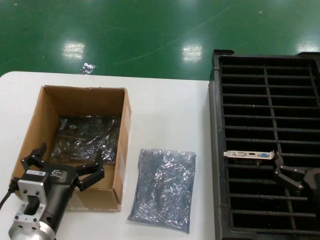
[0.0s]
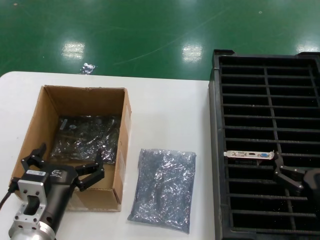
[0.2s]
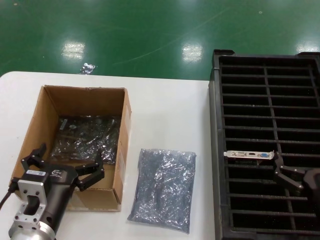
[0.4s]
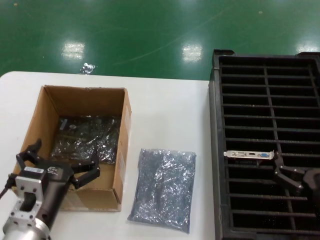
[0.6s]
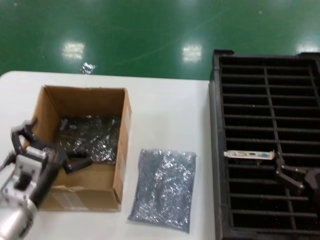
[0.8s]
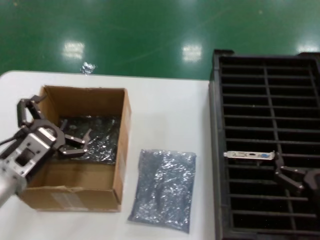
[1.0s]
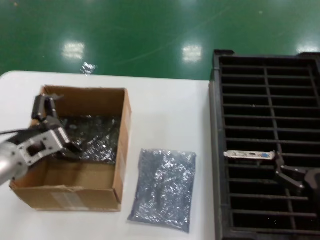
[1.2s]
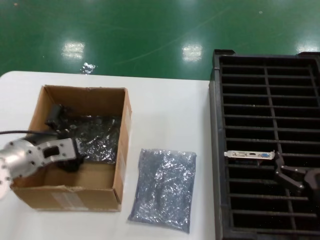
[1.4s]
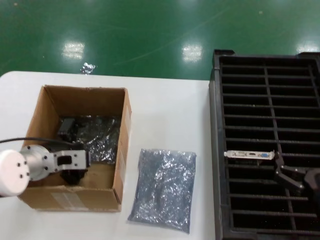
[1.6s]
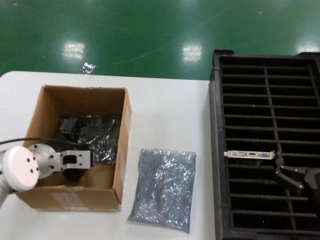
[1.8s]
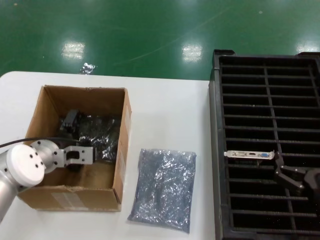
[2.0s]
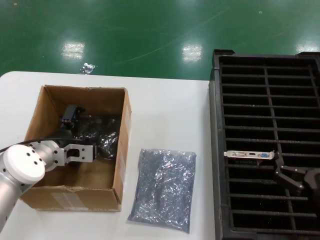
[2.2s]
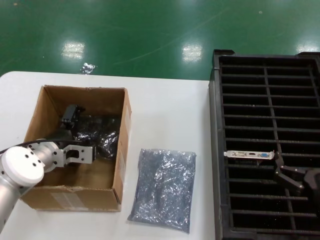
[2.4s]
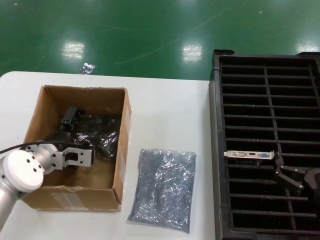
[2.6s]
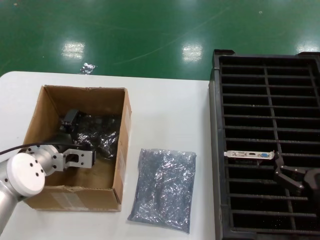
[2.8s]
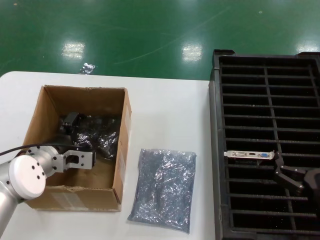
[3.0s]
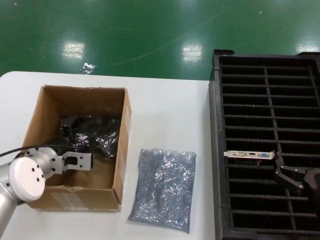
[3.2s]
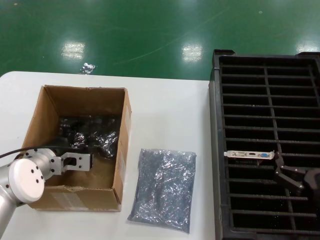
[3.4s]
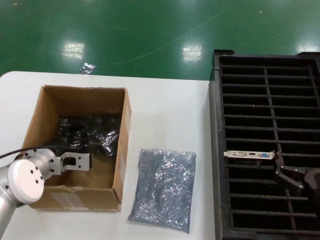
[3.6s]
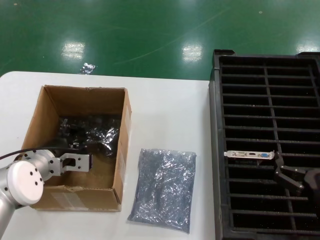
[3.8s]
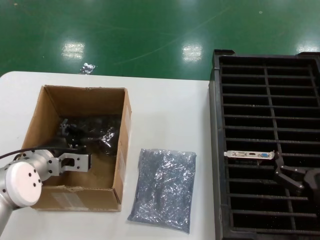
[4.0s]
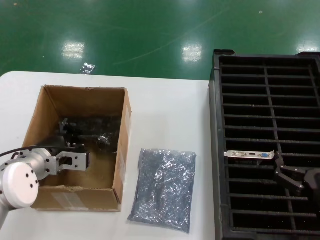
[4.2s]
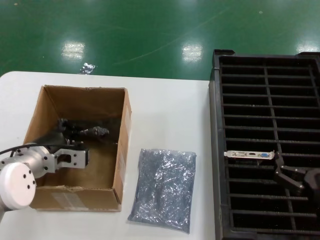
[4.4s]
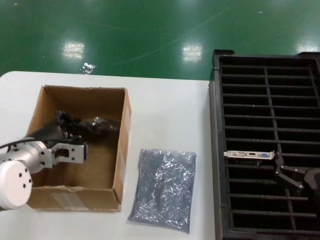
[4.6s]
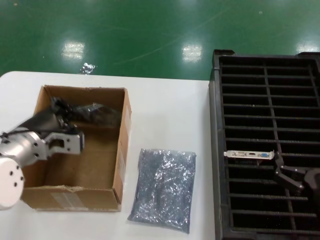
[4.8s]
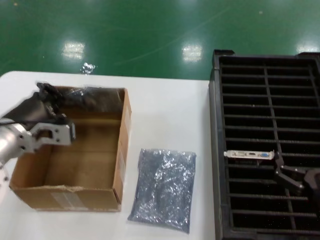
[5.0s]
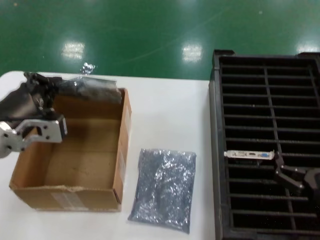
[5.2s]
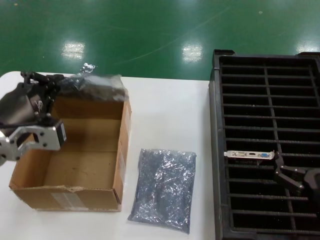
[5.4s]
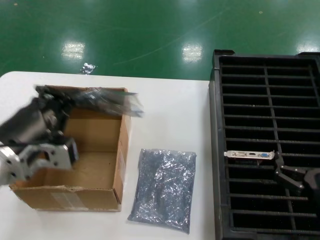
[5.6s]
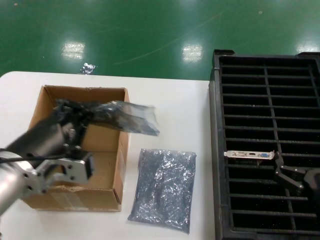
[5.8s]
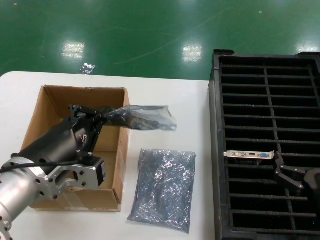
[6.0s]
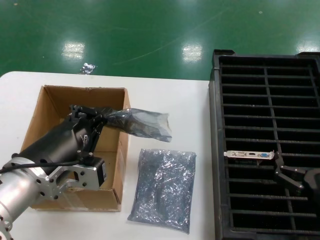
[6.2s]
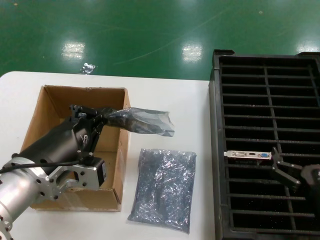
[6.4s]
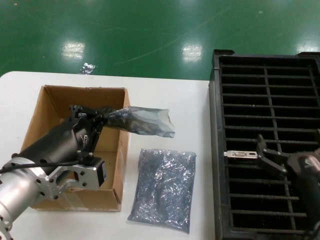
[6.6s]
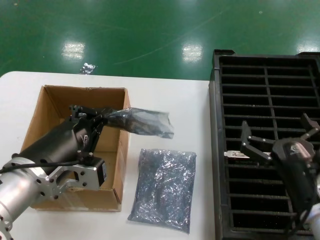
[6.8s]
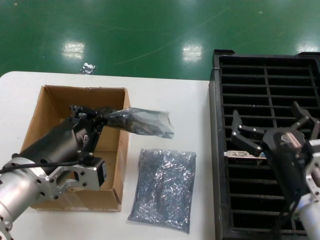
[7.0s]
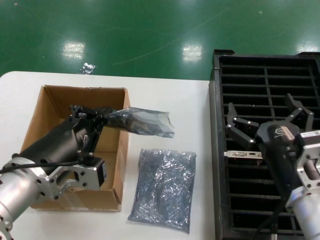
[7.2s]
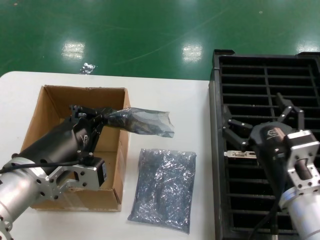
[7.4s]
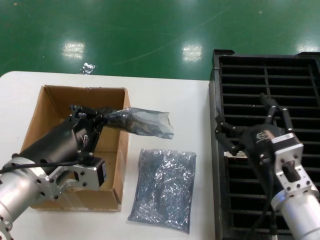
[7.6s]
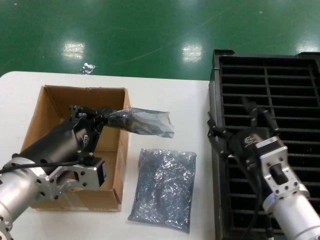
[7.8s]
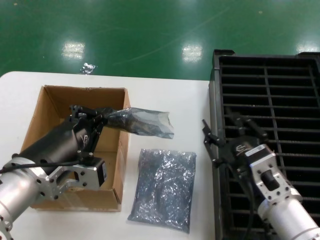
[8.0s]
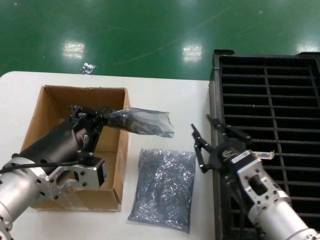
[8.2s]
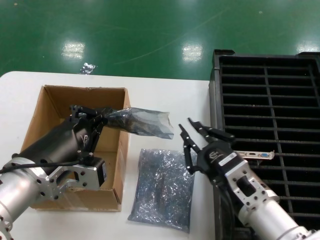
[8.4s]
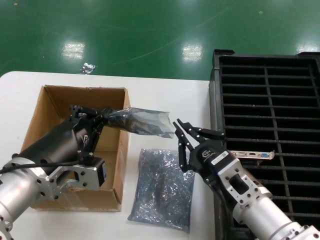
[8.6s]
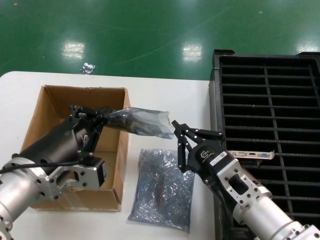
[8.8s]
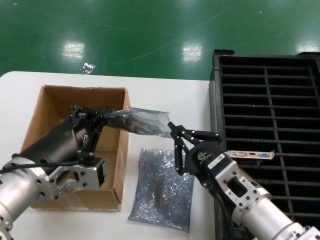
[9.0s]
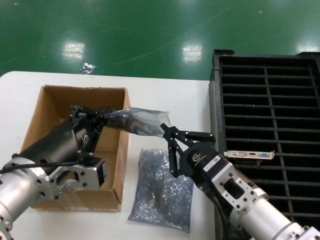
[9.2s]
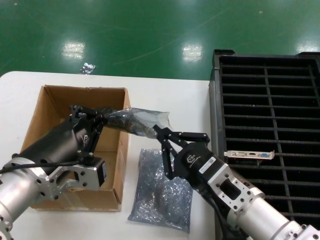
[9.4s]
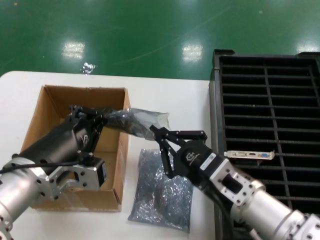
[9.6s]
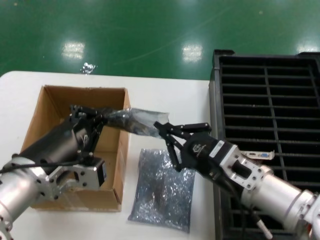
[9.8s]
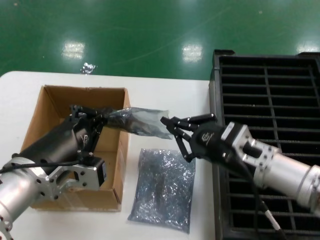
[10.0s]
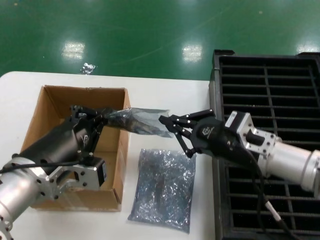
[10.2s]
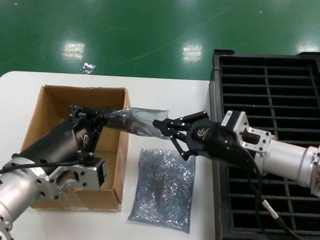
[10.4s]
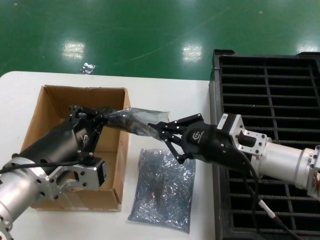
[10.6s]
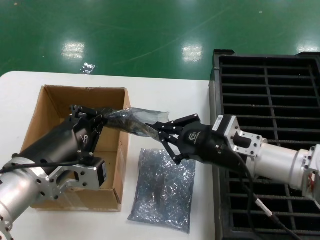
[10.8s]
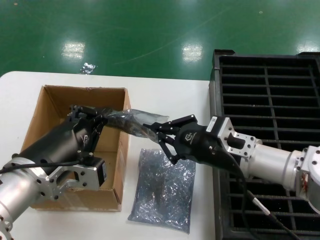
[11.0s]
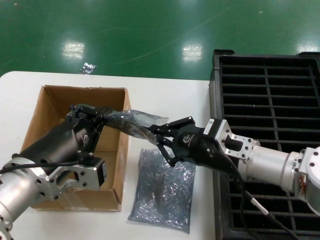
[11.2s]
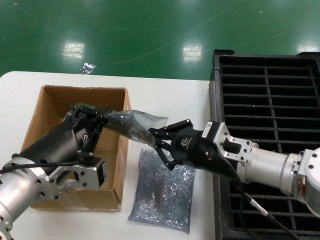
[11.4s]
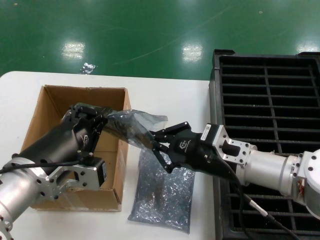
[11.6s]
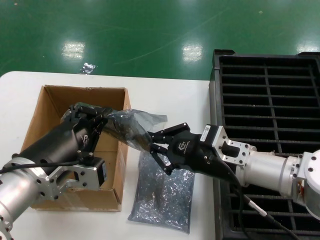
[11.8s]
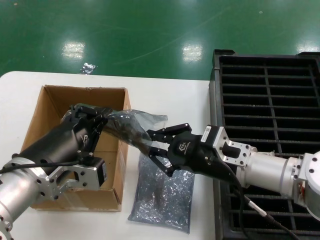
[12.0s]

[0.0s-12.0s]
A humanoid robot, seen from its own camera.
Task of the whole recording: take out graphics card from box remove packaging put into black container.
Step, 0.0s to 4.0s: Grasp the bag.
Step, 4.2s to 6.2s: Lift the bag.
0.0s to 1.6s: The left hand heads forward and to the left, covering some 20 cm.
1.6s to 4.4s: The hands stay close to where they were, moving slightly.
4.4s to 6.0s: The left hand is displaced backward, upward and to the right by roughly 20 cm.
6.0s to 7.6s: The right hand heads to the left and upward, covering approximately 10 cm.
9.0s to 10.4s: The right hand heads forward, upward and to the right, covering roughly 15 cm.
10.4s to 12.0s: The hands make only small movements.

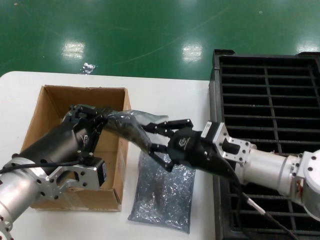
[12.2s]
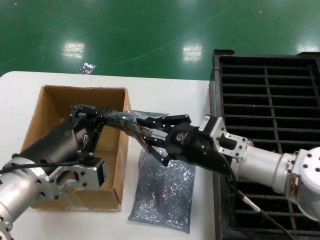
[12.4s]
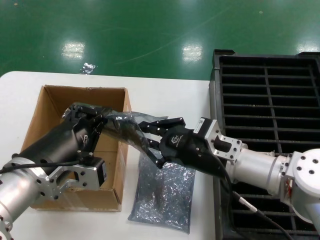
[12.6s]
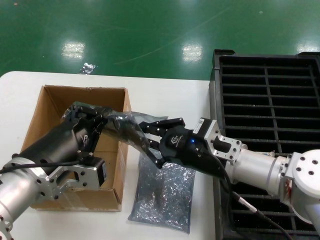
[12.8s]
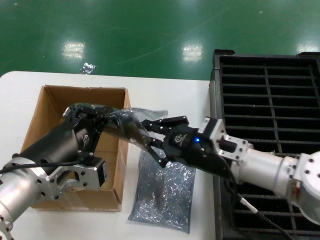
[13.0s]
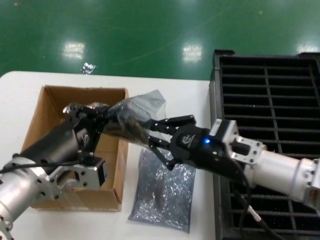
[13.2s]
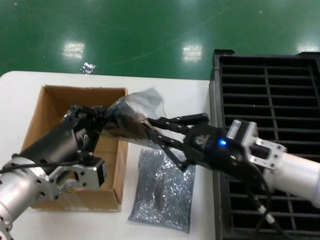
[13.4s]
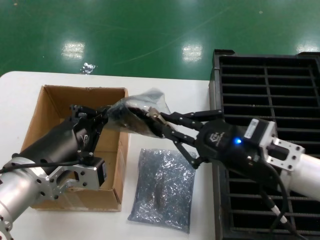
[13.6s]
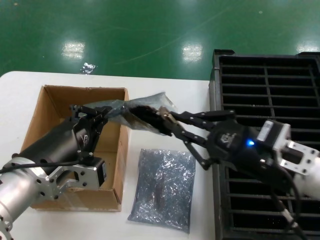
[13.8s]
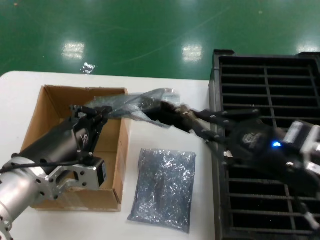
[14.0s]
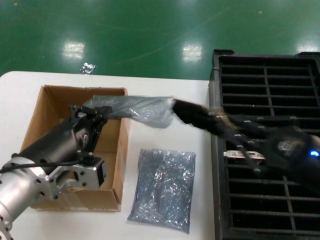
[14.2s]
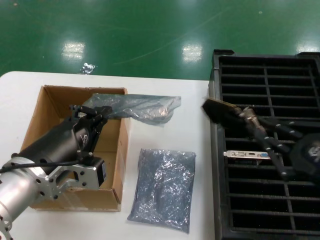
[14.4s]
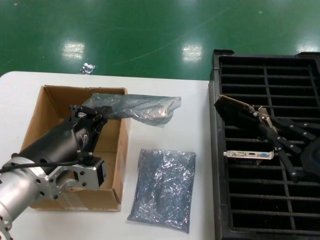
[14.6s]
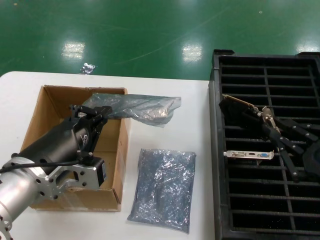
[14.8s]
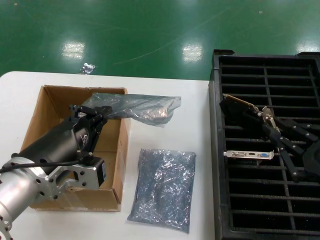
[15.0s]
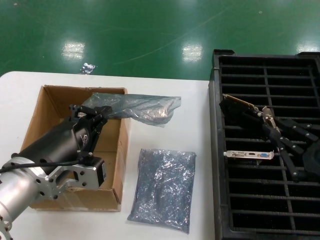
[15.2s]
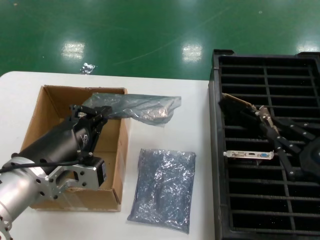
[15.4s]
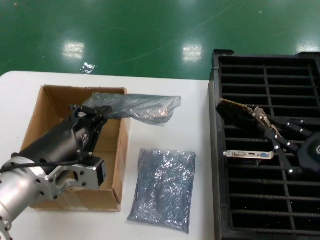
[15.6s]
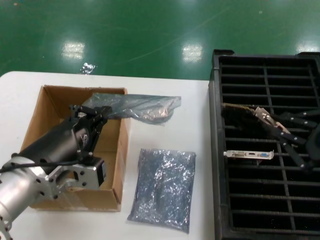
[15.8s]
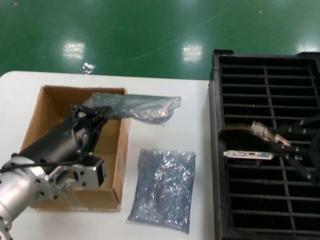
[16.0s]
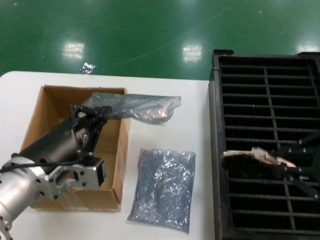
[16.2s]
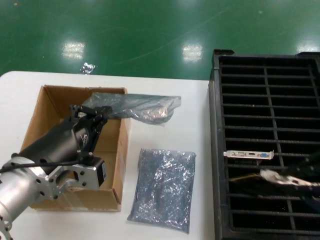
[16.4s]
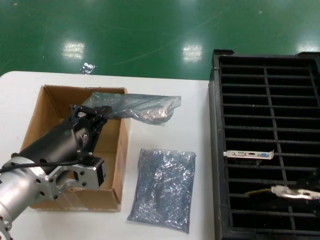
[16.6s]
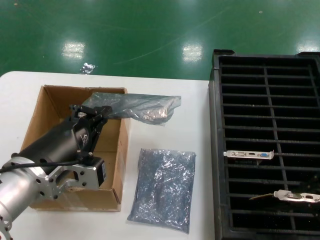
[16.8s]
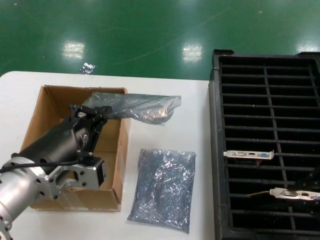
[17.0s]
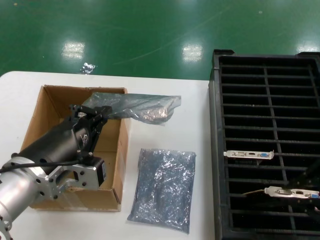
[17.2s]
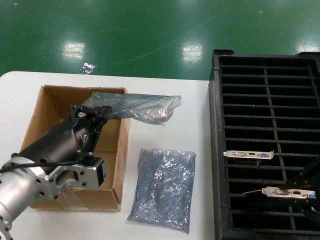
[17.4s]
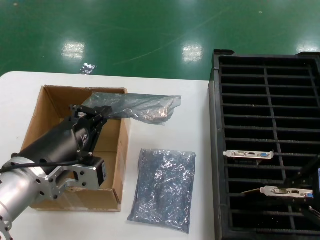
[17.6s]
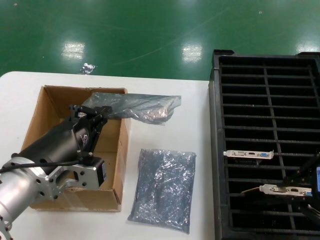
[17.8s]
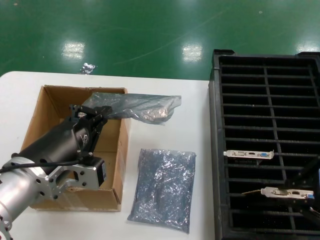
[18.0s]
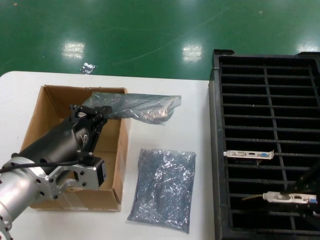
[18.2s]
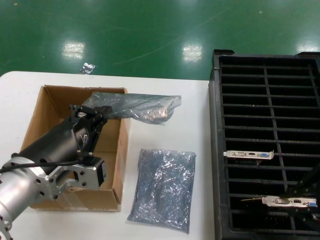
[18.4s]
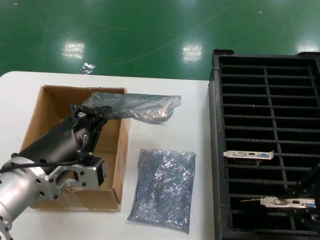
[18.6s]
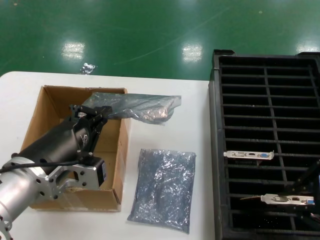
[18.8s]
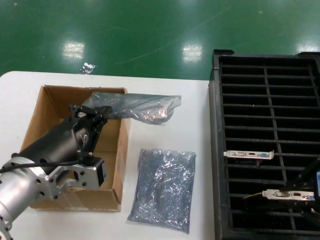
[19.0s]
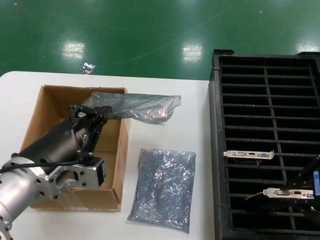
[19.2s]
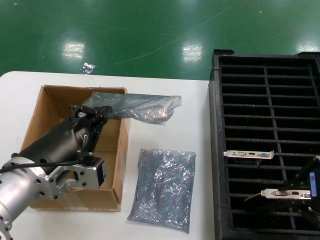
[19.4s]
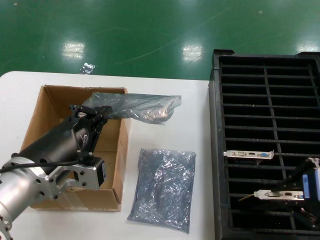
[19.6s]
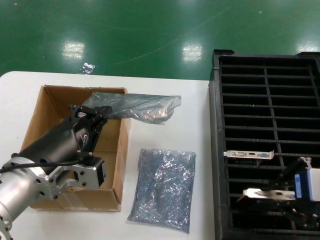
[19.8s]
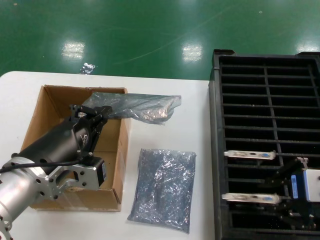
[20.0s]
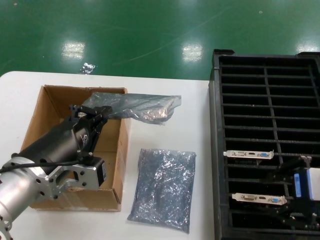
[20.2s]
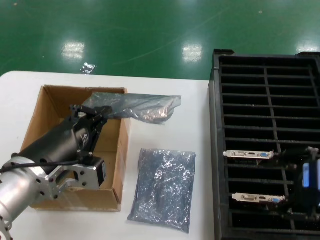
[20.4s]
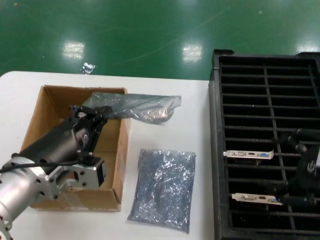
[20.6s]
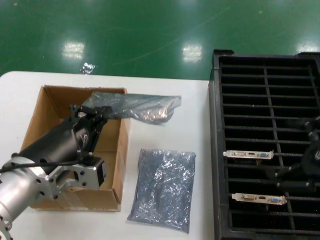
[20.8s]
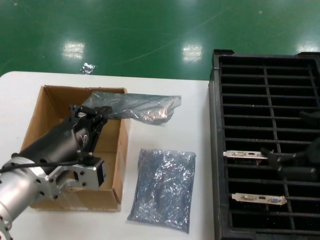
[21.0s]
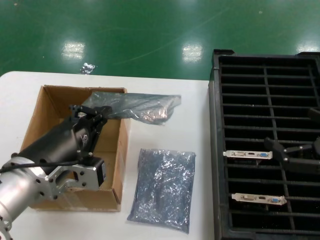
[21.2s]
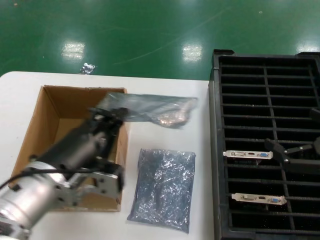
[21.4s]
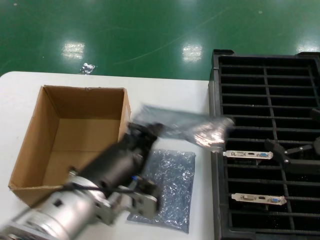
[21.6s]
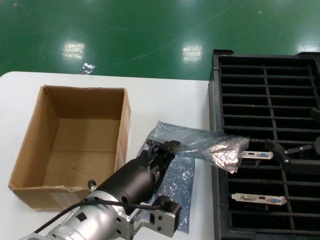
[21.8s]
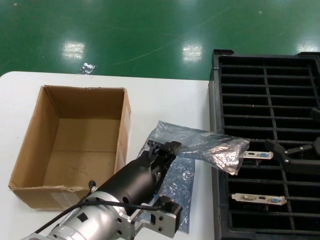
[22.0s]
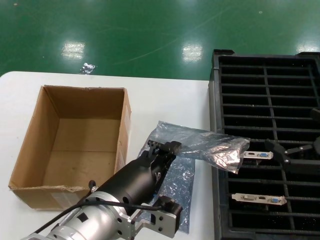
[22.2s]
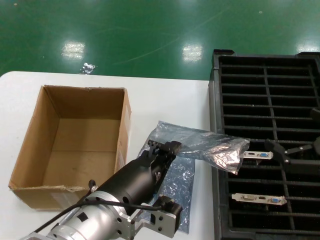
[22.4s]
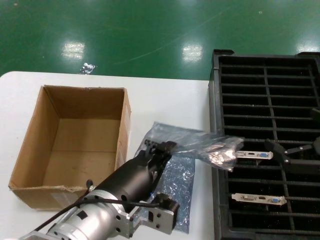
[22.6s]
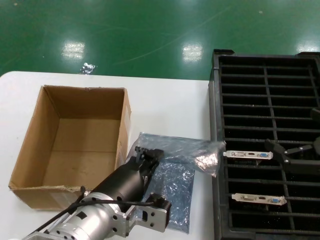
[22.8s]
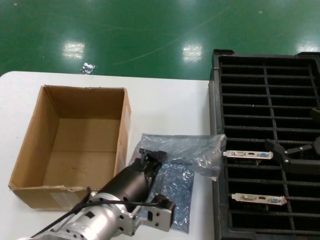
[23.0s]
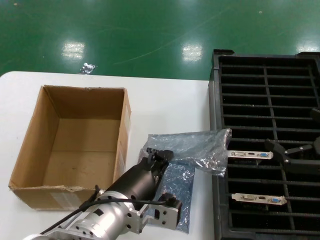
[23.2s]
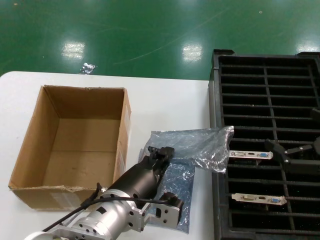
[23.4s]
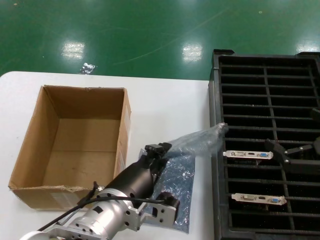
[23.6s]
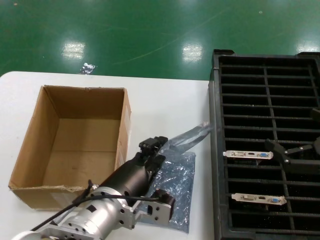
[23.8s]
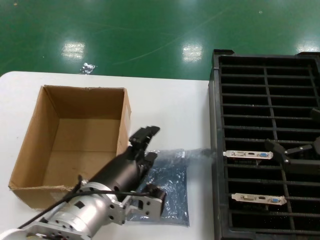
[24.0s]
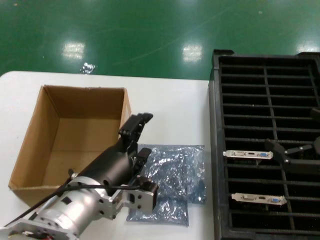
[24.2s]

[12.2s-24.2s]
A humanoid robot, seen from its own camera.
Task of the whole recording: take out graphics card from box remove packaging put into black container.
Step, 12.2s to 14.2s: Take out the hard disk of the bag.
Step, 14.4s to 20.2s: Place the hard disk in the hard disk enclosure.
Step, 20.4s to 24.2s: Place the down the bag.
12.2s to 13.8s: The right hand travels backward and to the right by about 10 cm.
13.8s to 15.2s: The right hand moves to the right and backward, approximately 15 cm.
15.2s to 16.6s: The right hand travels upward by roughly 15 cm.
16.6s to 18.2s: The hands stay close to where they were, moving slightly.
18.2s to 19.8s: There are only small adjustments of the hands.
19.8s to 21.2s: The right hand heads to the right and downward, covering about 10 cm.
21.2s to 22.6s: The left hand heads to the right, covering approximately 10 cm.
22.6s to 24.2s: The hands stay close to where they were, moving slightly.
